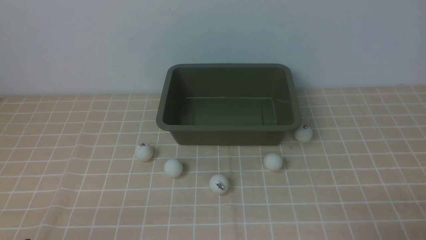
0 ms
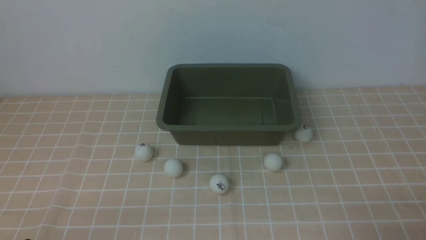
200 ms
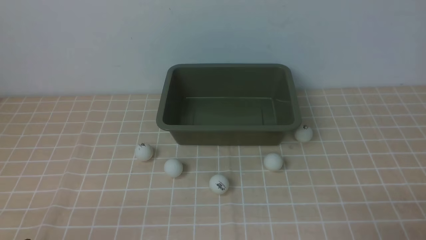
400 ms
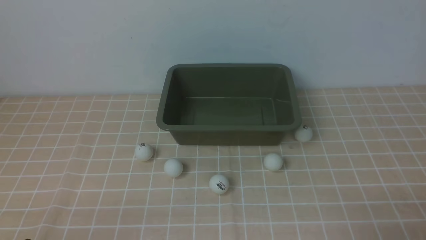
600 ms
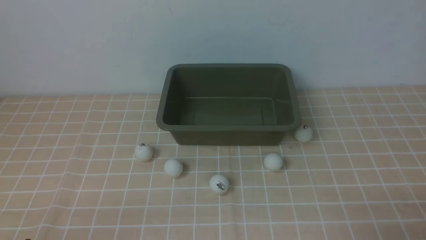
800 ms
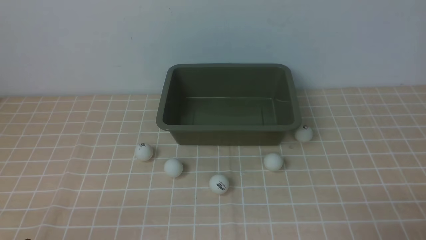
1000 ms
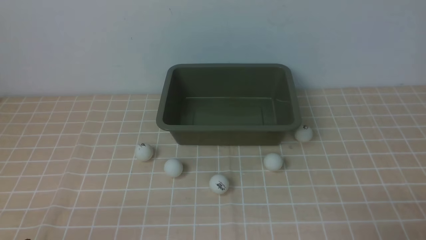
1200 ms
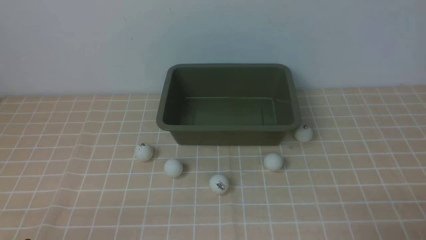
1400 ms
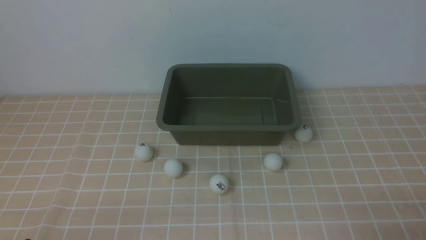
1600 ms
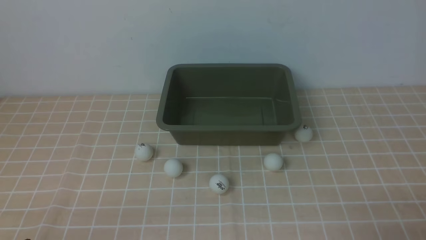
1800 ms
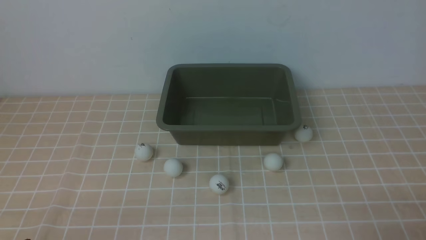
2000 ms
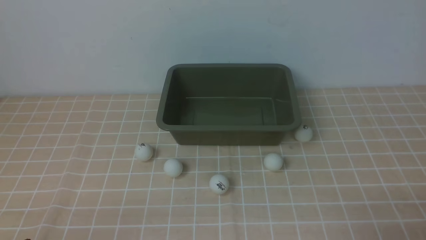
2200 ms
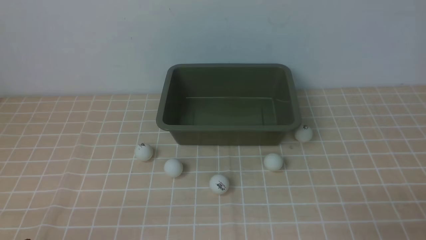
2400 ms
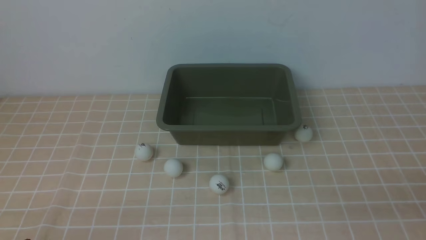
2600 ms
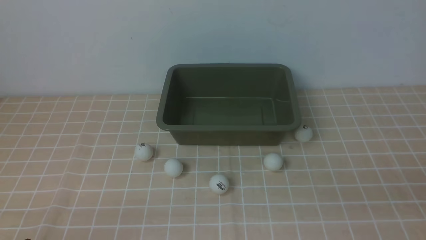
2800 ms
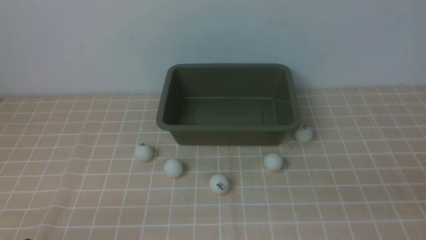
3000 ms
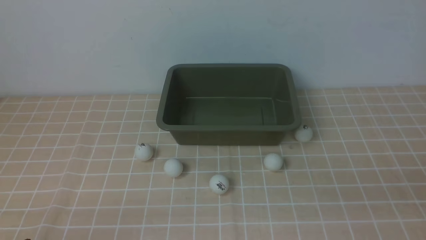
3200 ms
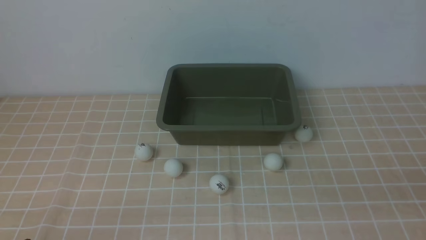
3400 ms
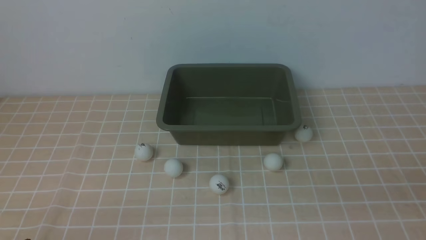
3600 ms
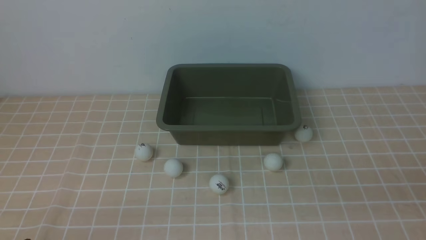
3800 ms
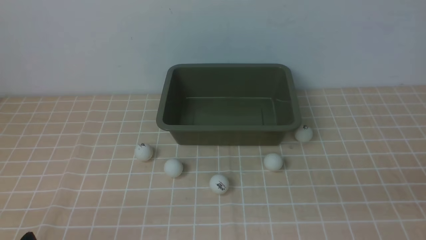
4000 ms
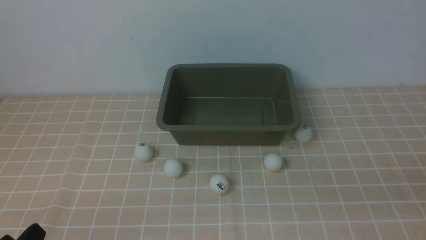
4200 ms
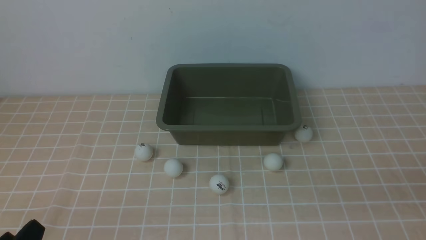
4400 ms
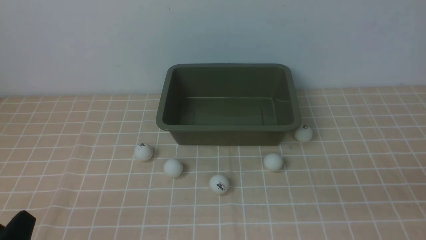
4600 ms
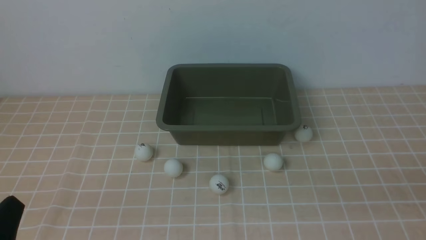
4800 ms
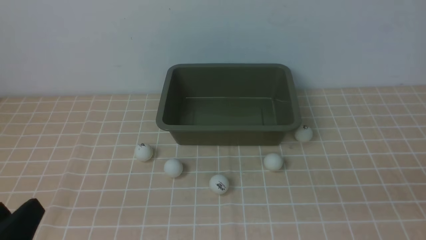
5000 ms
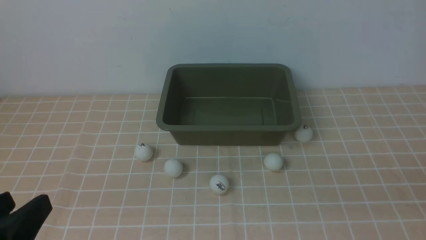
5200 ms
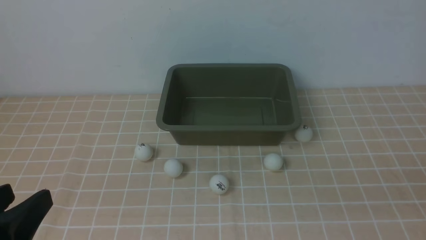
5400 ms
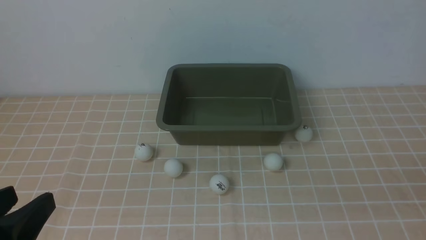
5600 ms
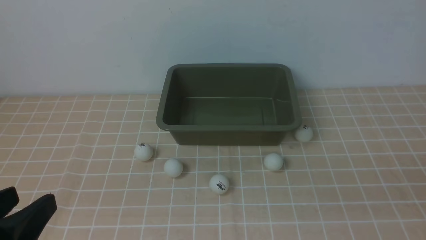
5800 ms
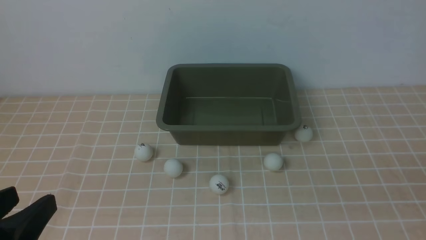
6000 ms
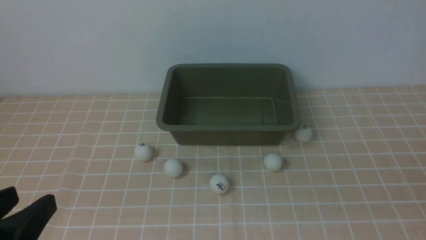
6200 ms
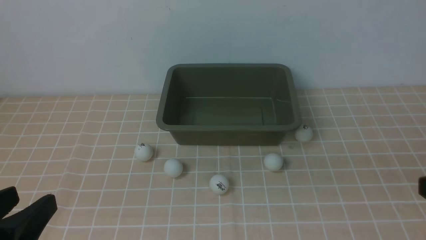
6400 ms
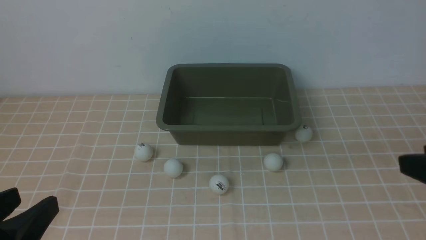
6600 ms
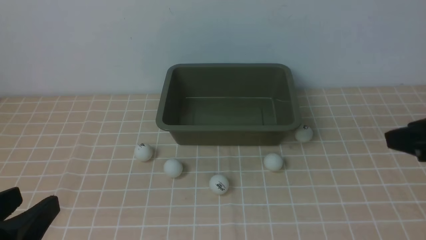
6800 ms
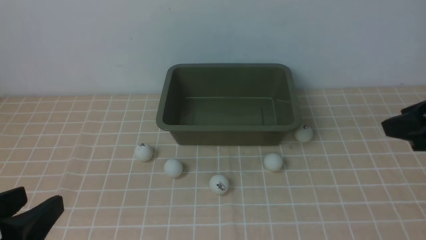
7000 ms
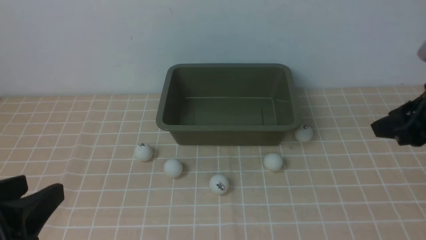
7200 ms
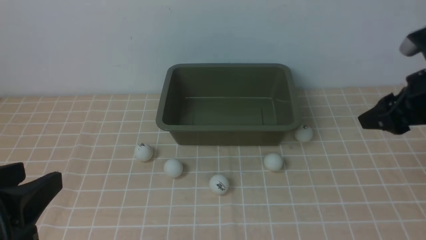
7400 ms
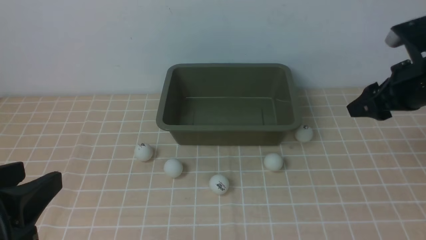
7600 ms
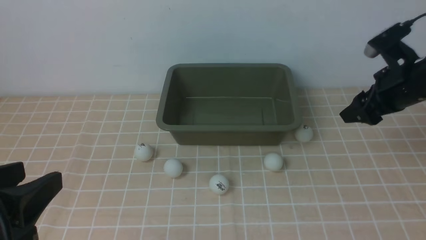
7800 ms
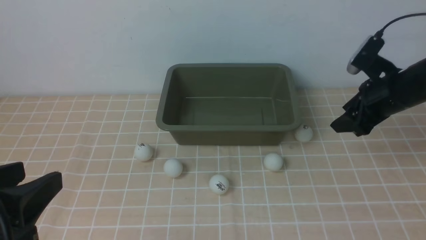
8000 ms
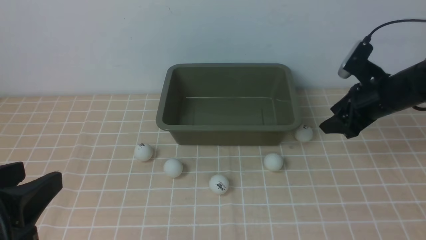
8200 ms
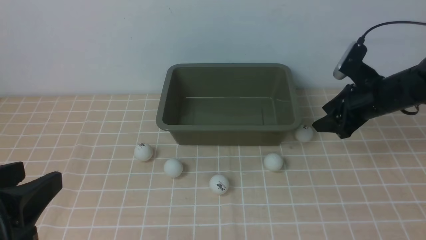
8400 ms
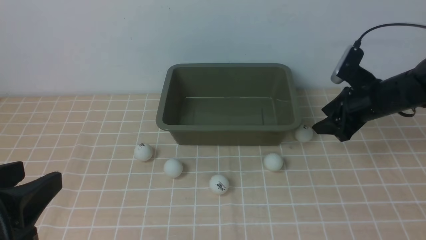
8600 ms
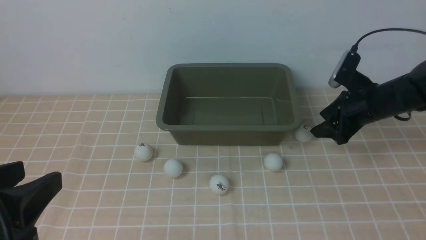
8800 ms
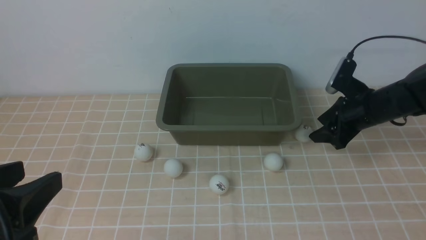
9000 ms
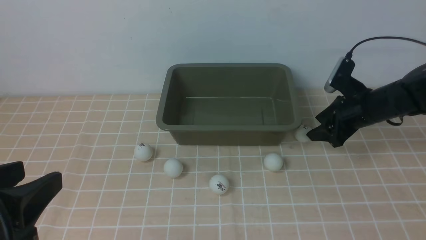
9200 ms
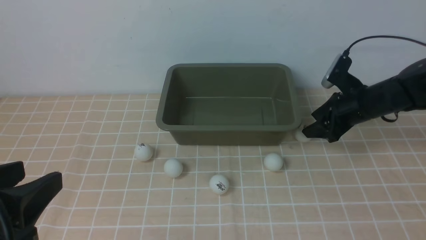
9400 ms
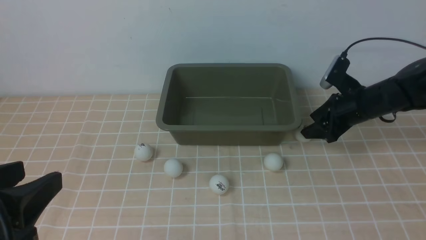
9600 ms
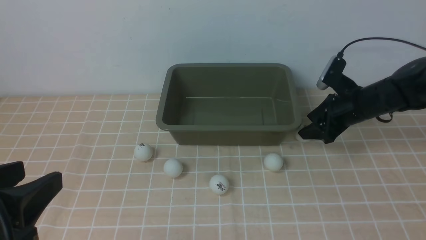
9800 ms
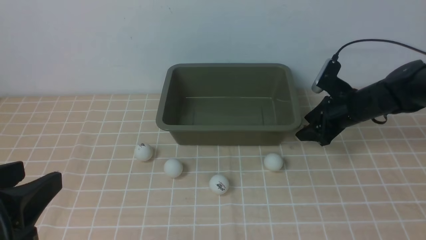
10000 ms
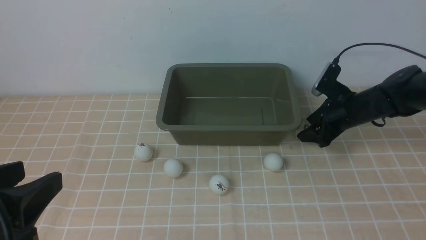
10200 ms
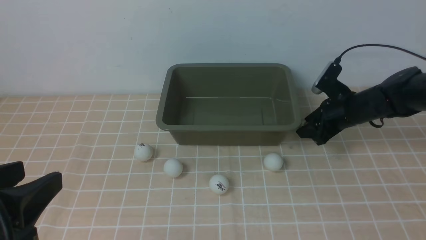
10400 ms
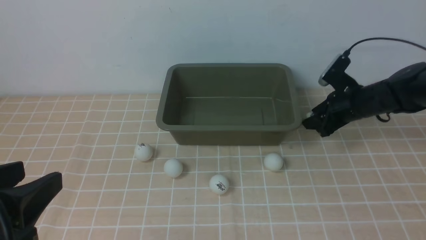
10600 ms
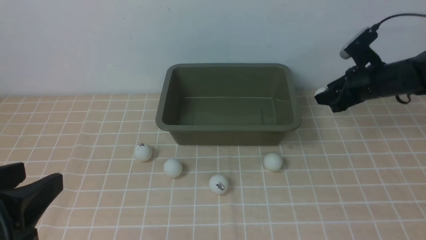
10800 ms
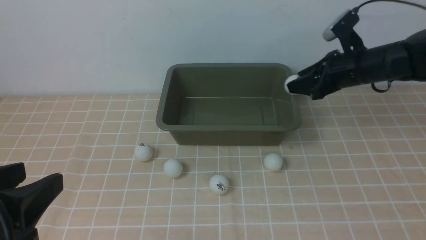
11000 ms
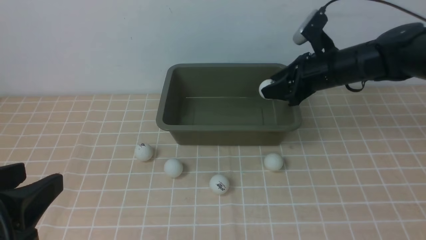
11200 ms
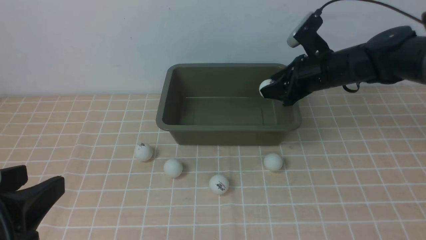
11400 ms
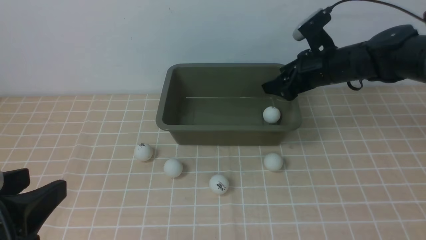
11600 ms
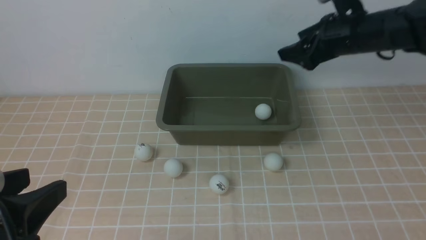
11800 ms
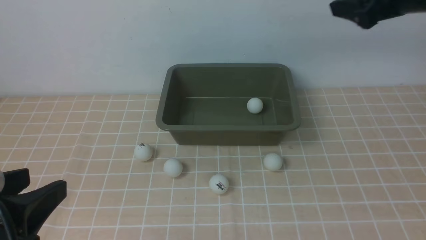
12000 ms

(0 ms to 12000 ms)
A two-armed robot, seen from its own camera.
Step, 0 ms - 11200 ms: use the right arm to clamp the table tennis ball closest to it.
Step, 11400 ms - 12000 ms: use the right arm to put the table tennis ball into the box.
0 ms - 1600 ms: Neither gripper changes place.
4400 ms - 6000 ms: The left gripper is displaced upward by about 10 cm.
6000 ms - 7600 ms: The right gripper is displaced forward by roughly 30 cm, and opens its fingers.
7600 ms - 9000 ms: The right gripper heads downward and forward, covering about 15 cm.
9000 ms - 10400 ms: The grippers stay close to where they were, moving slightly.
10400 ms - 12000 ms: The right gripper moves upward, approximately 25 cm, and opens up.

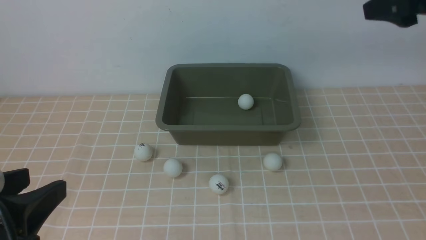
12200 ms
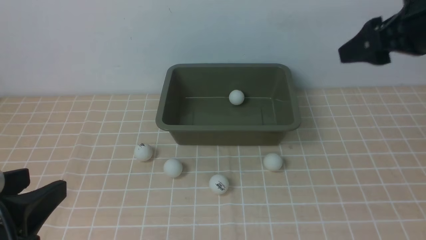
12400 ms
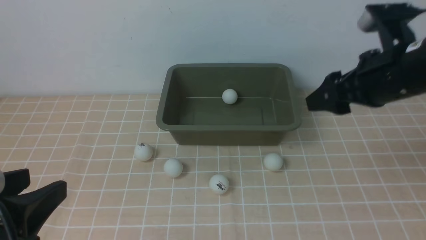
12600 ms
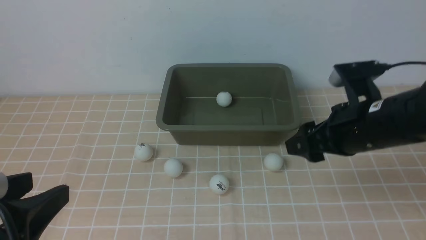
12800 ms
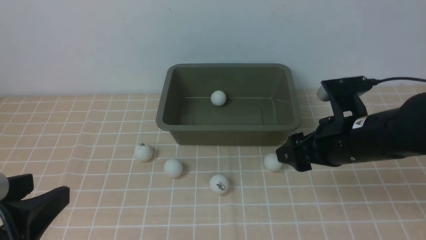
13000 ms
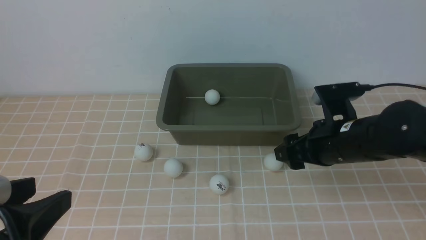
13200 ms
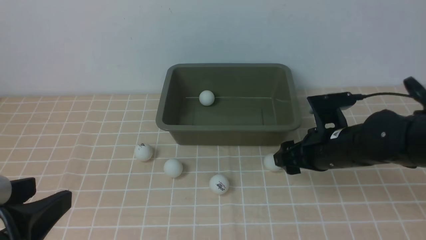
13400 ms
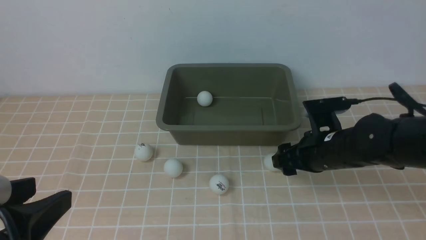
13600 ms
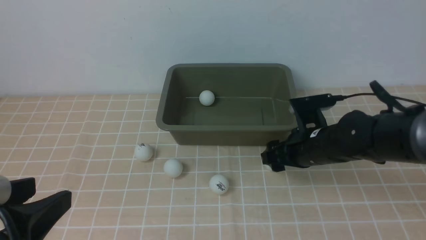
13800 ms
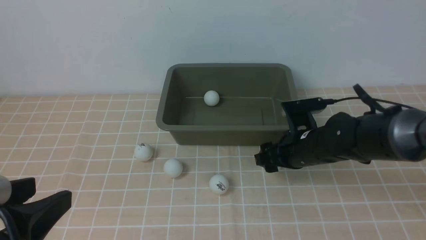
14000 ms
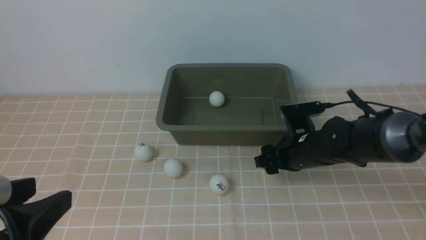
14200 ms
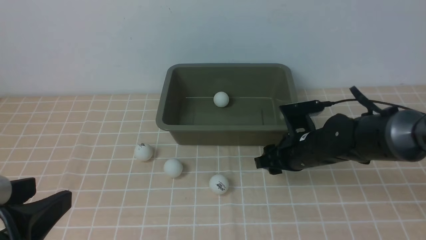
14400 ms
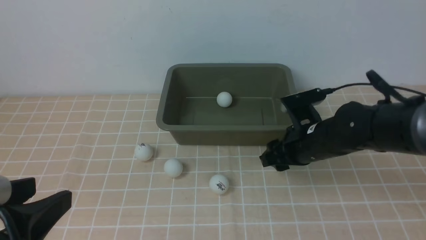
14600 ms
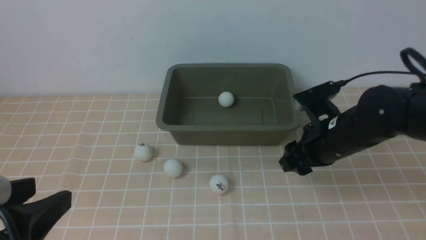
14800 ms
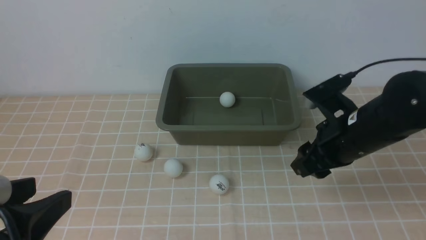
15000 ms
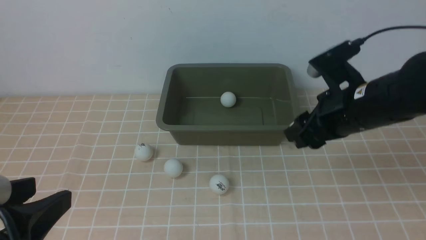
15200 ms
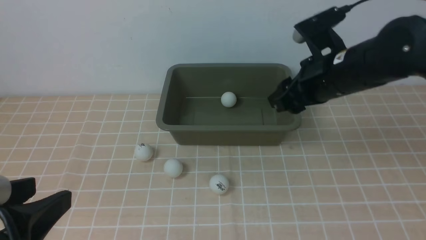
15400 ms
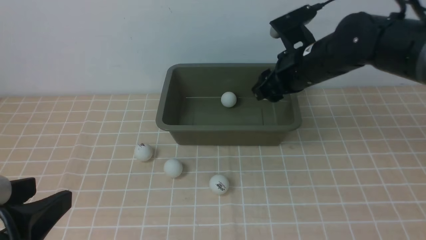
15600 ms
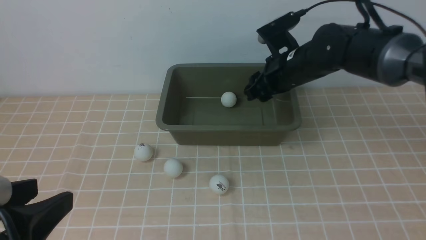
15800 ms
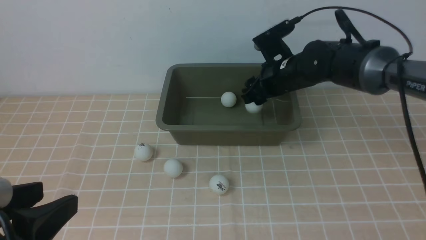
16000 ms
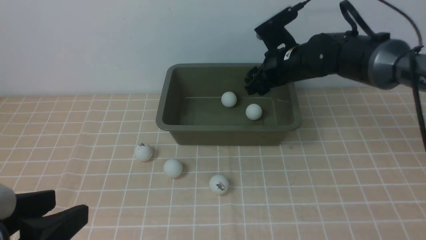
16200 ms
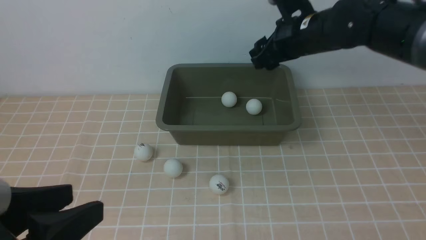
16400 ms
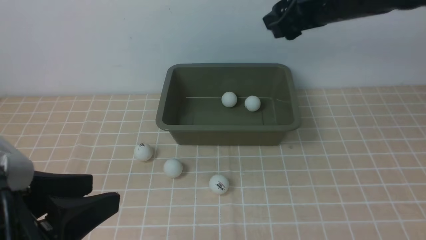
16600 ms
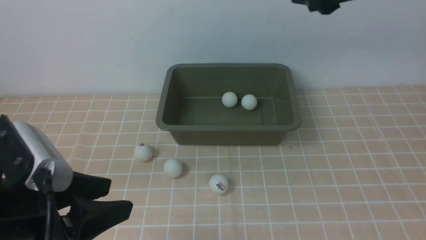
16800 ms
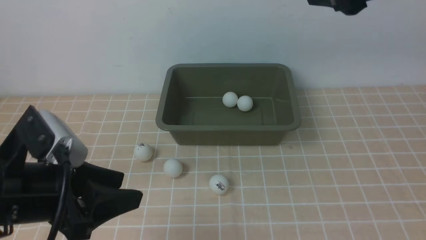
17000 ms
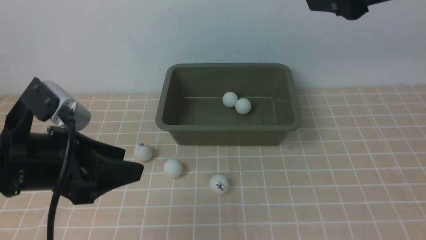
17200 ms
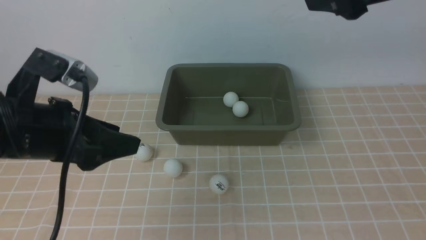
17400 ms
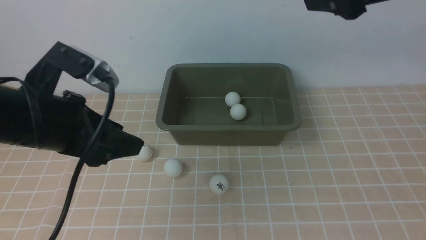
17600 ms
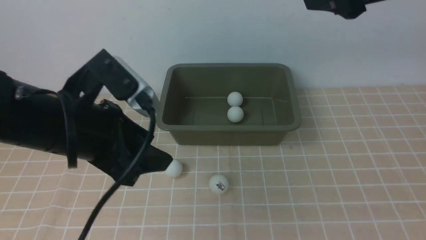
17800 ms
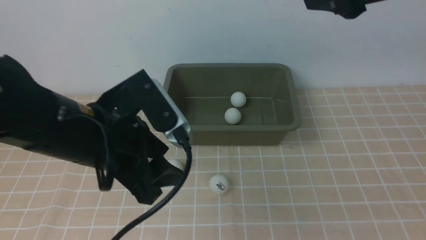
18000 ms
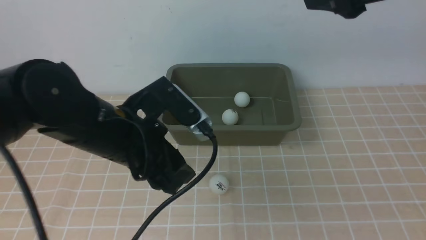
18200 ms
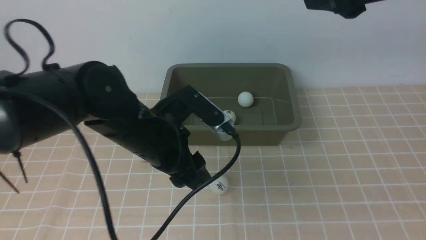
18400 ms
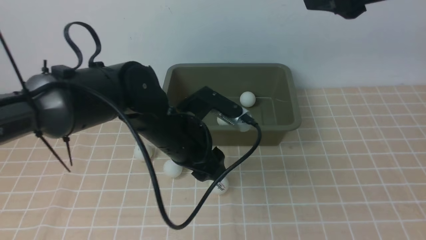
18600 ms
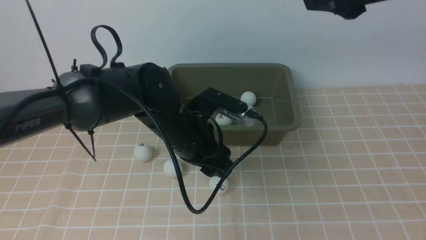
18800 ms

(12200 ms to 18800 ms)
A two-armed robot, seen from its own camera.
Step, 12200 ms - 14800 ms: use the right arm to clamp the table tennis ball closest to it.
Step, 15000 ms - 16400 ms: use the right arm to put the table tennis ball into the box.
12200 ms - 13800 ms: The right gripper goes approximately 25 cm downward and to the left.
13800 ms - 15400 ms: The right gripper moves upward, about 15 cm, and closes.
15400 ms - 17200 ms: The right gripper heads upward and backward, covering about 20 cm, and opens up, while the left gripper is displaced forward by roughly 10 cm.
17200 ms - 18800 ms: The left gripper shifts roughly 20 cm to the right, forward and downward.
